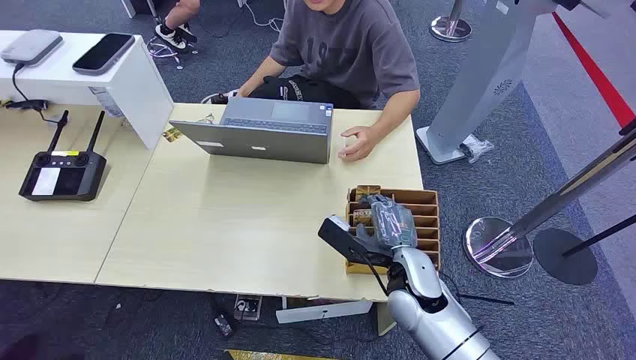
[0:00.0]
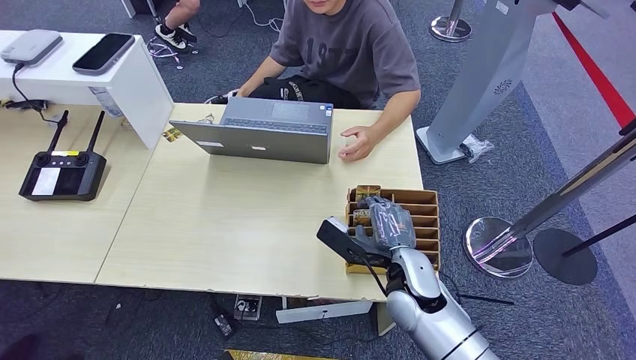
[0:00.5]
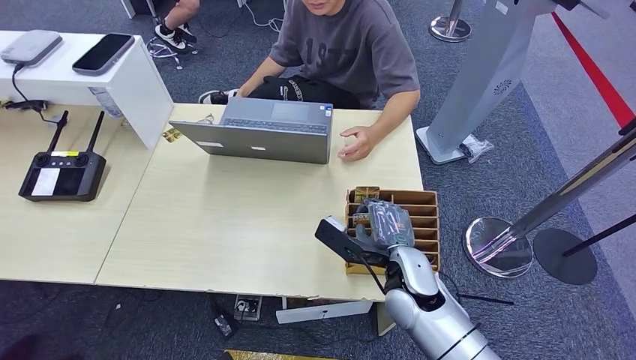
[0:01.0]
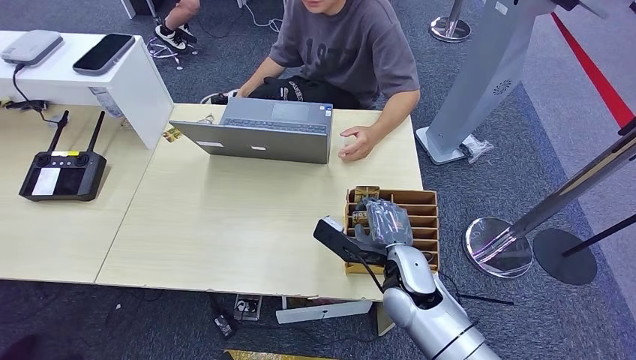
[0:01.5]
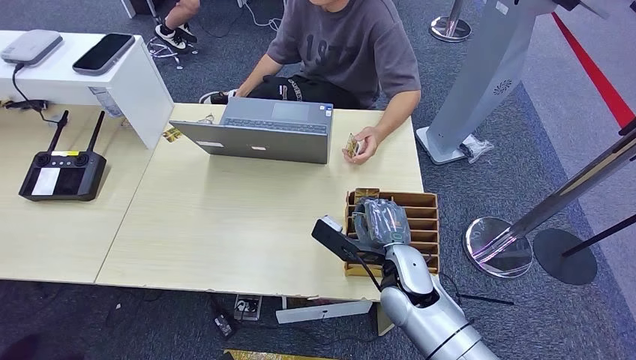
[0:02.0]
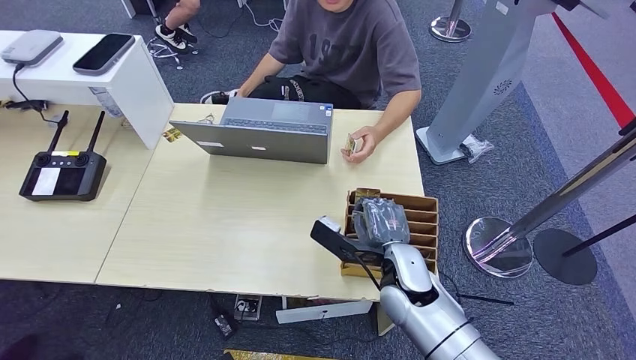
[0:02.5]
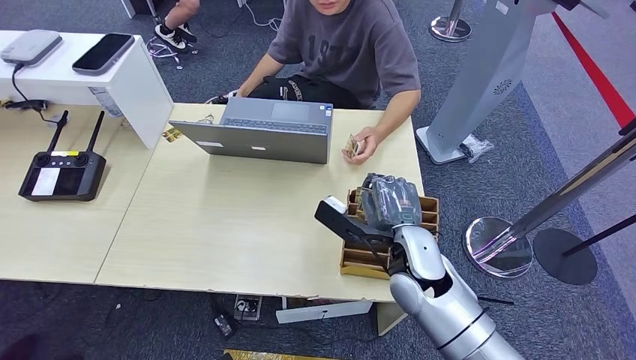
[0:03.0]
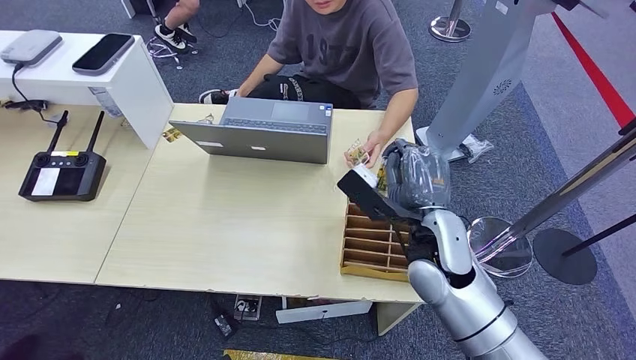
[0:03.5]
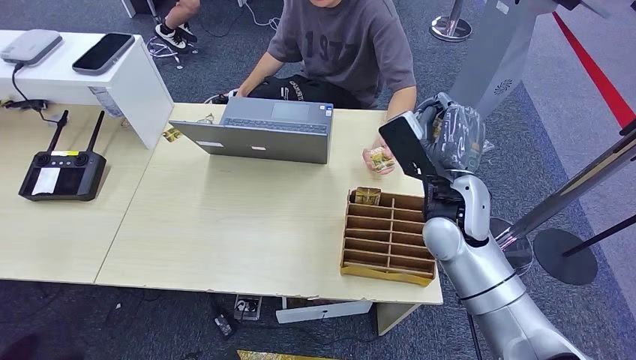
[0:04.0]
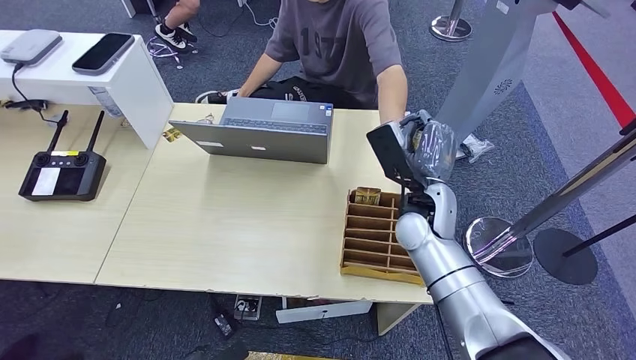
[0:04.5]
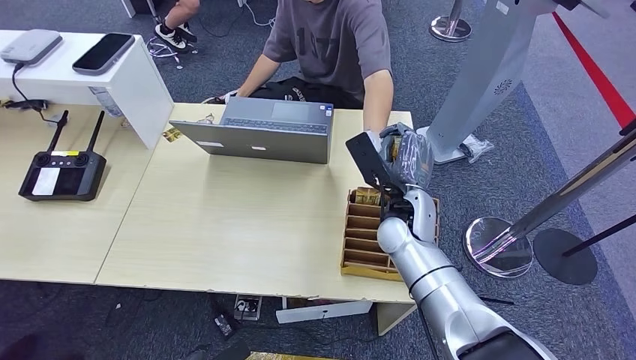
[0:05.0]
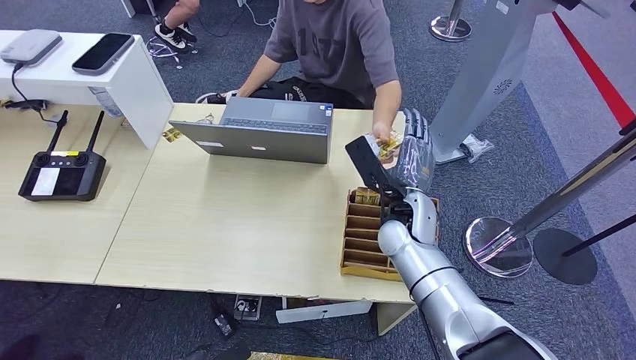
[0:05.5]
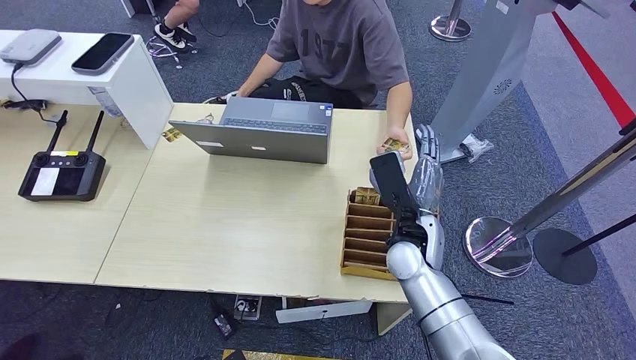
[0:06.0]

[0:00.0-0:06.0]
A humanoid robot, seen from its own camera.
Step, 0:00.0 to 0:03.5: Pick up the room card from the card holder.
Step, 0:04.5 to 0:06.0: Hand the room card to the target.
0:02.0 to 0:04.0: The right hand travels upward and forward by about 15 cm.
0:04.0 to 0:06.0: The right hand is displaced downward by approximately 10 cm.
